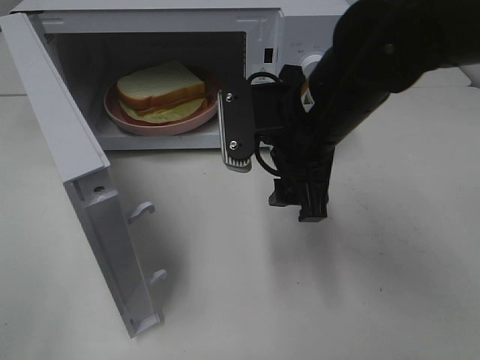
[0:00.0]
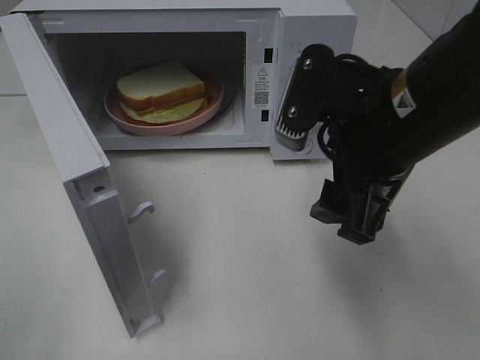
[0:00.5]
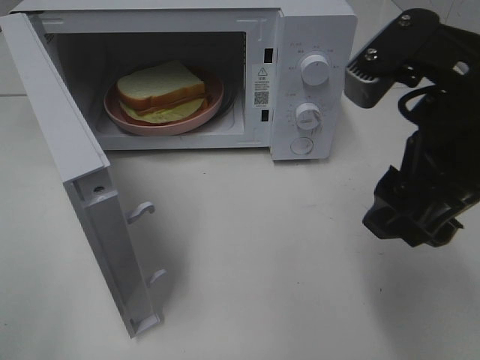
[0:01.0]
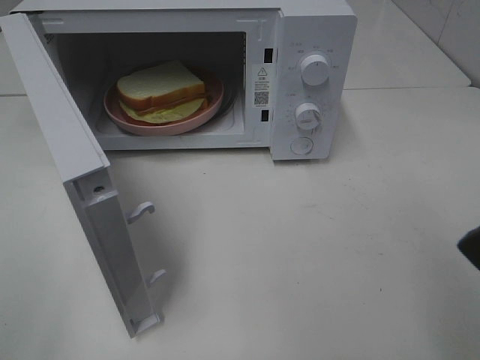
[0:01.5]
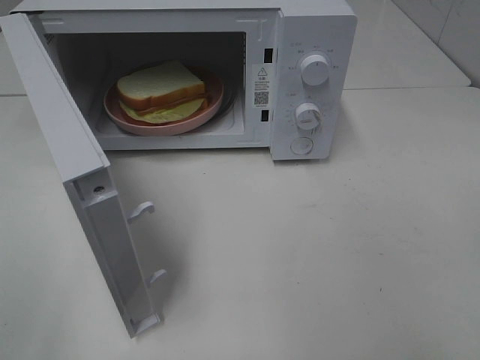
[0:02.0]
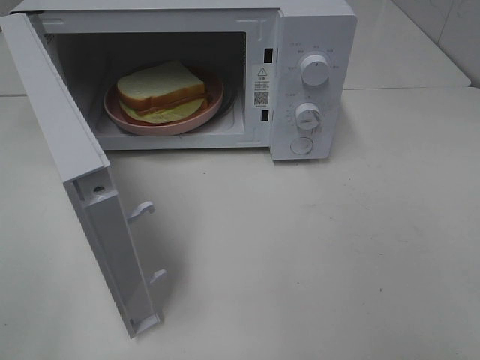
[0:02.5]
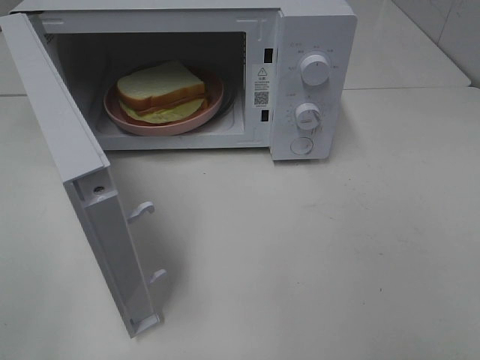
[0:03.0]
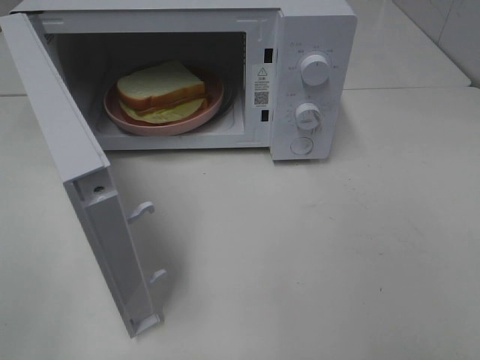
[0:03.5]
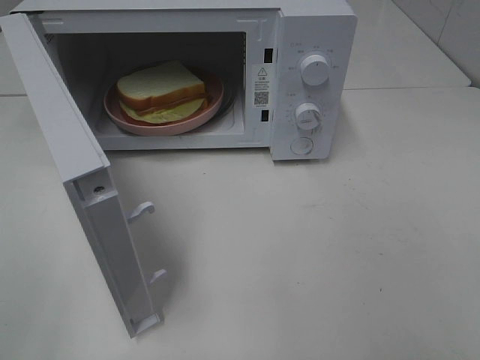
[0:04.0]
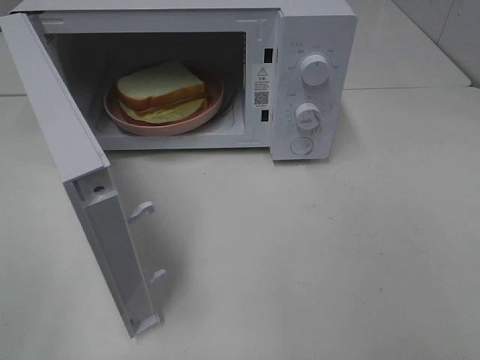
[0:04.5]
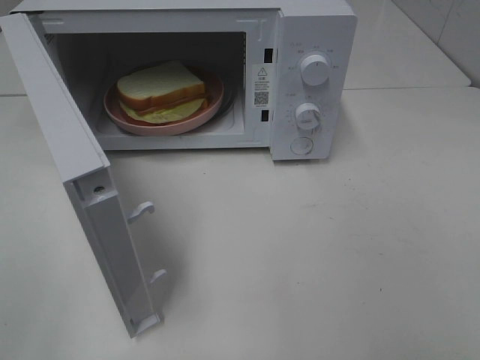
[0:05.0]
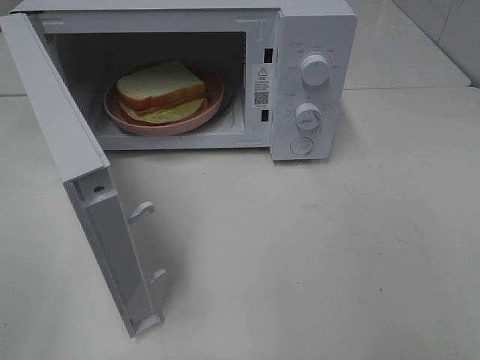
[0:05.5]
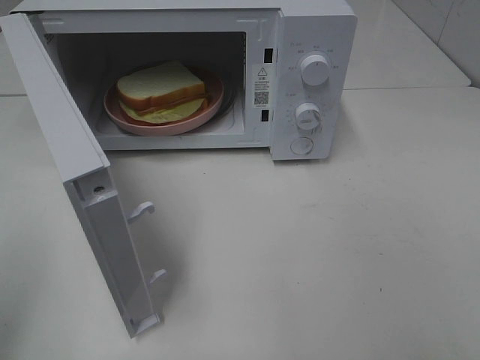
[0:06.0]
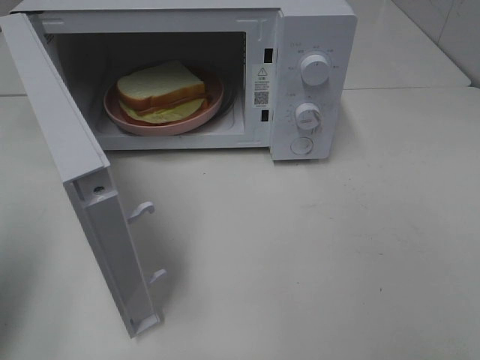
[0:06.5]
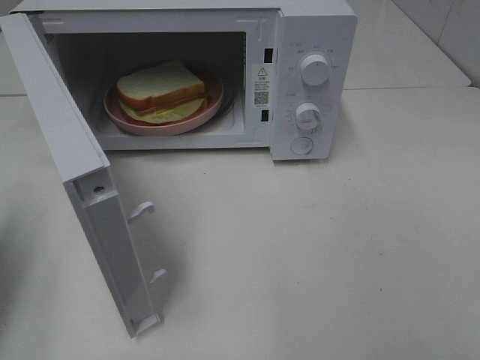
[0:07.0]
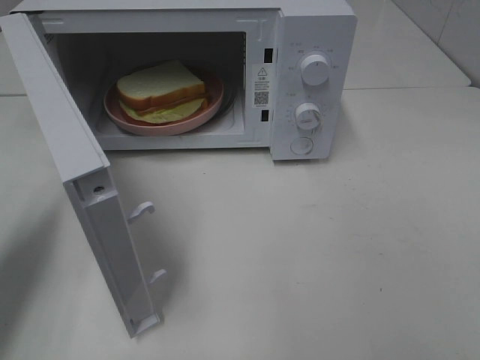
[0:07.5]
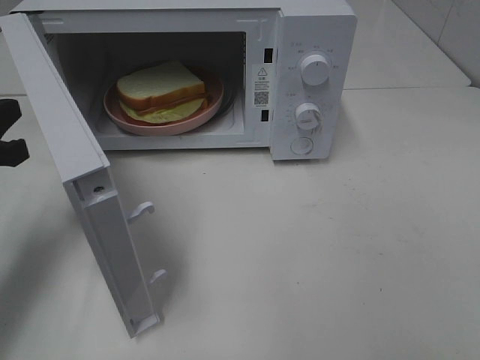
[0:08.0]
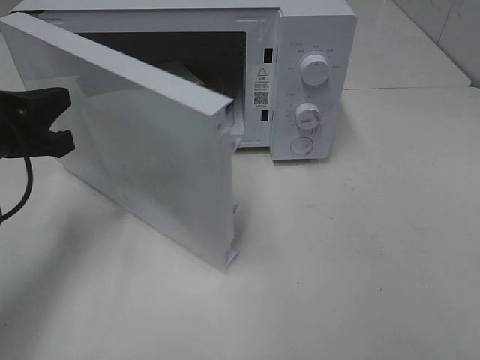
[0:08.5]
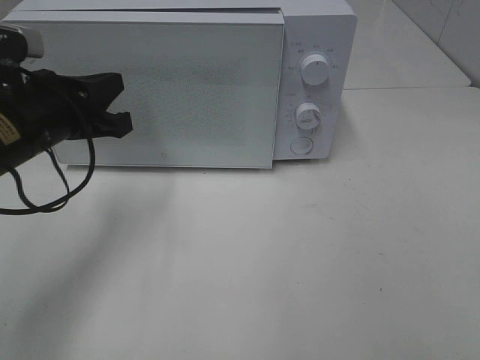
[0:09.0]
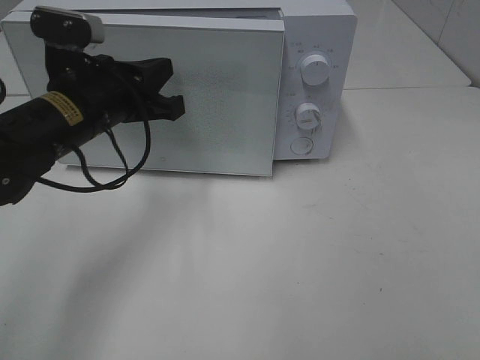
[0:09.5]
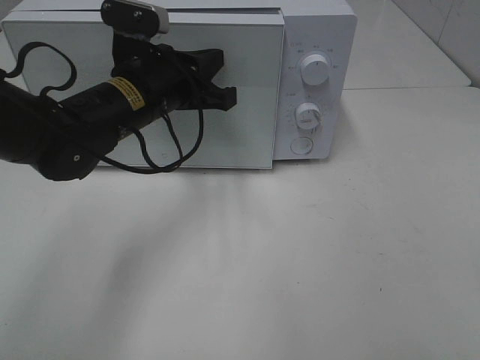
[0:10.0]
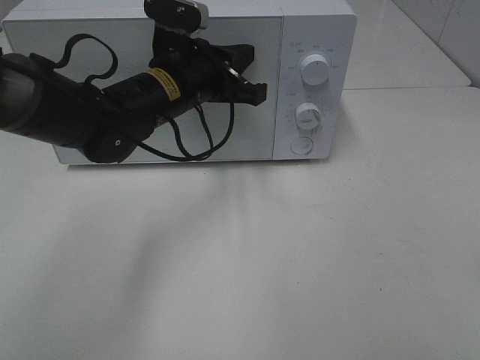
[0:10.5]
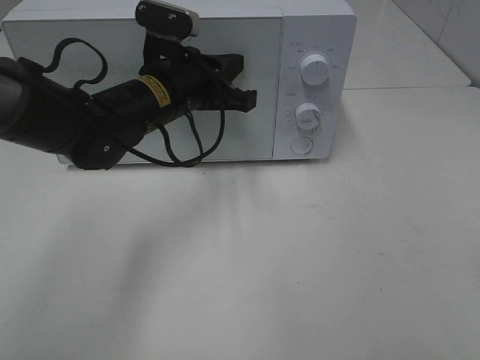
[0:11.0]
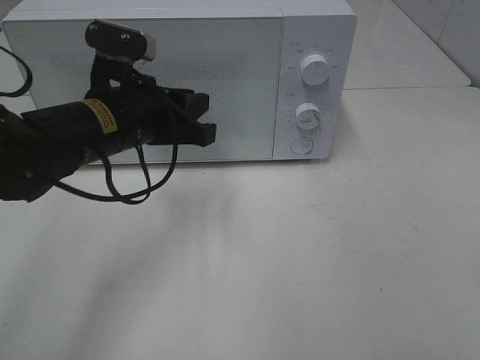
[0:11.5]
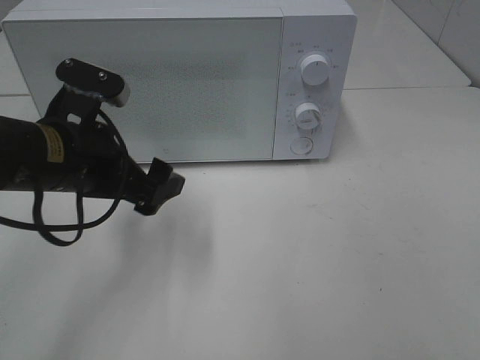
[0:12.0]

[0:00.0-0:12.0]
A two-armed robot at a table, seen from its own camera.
Task of the whole recording: Heat Sandwich.
Step, 0:00.0 to 0:11.5: Left hand: close the microwave door.
0:00.0 to 0:02.0: The right gripper moves backward, to the right and upward, about 30 cm.
0:06.0 to 0:08.0: The left gripper shifts some 20 cm forward and downward.
0:08.0 to 0:10.0: The left gripper shifts approximately 20 cm to the right and forward.
0:10.0 to 0:12.0: The left gripper heads backward and to the left, covering some 10 cm, and opens.

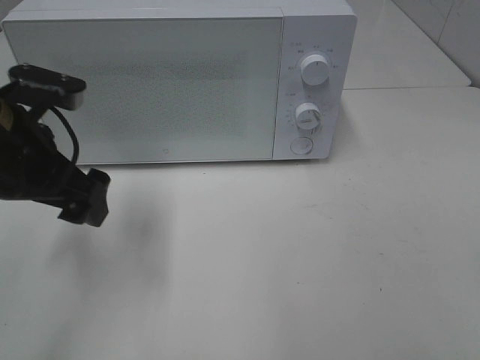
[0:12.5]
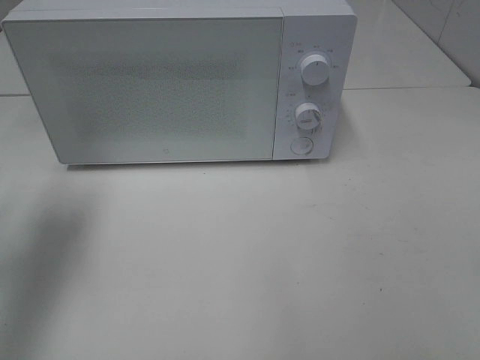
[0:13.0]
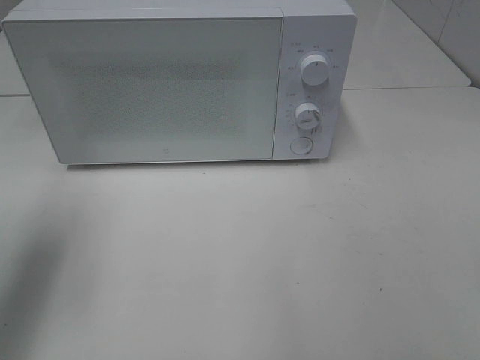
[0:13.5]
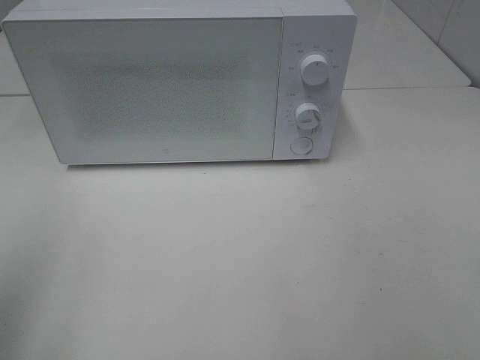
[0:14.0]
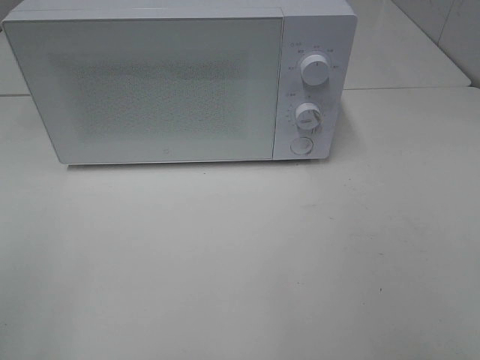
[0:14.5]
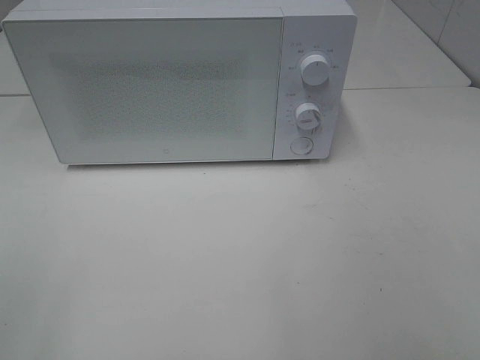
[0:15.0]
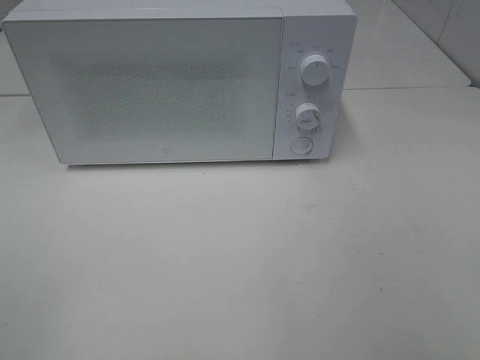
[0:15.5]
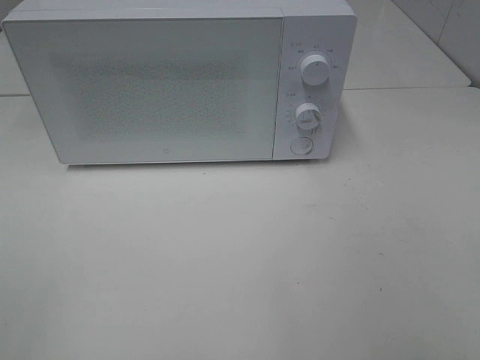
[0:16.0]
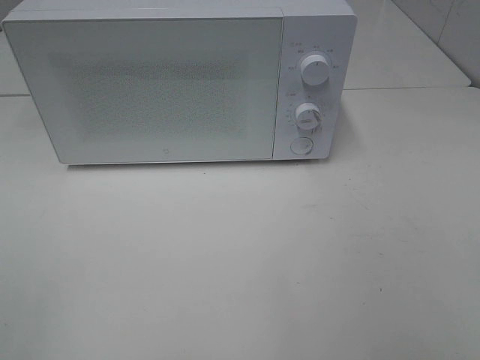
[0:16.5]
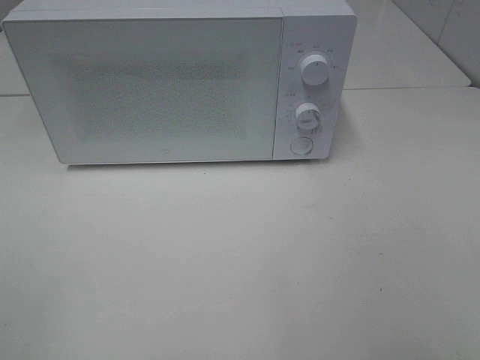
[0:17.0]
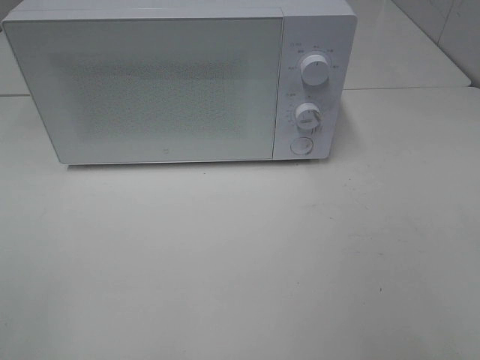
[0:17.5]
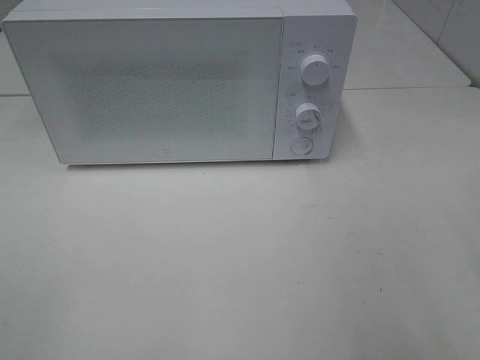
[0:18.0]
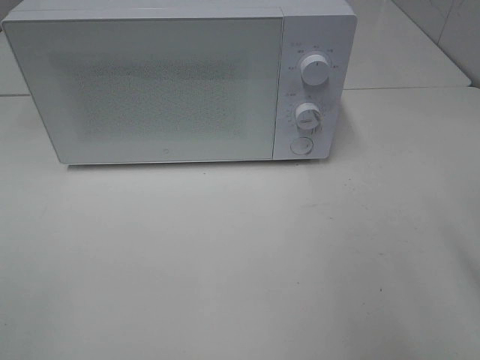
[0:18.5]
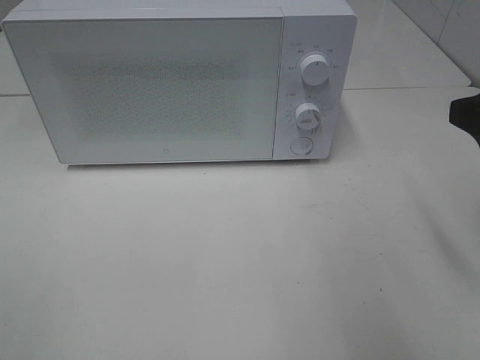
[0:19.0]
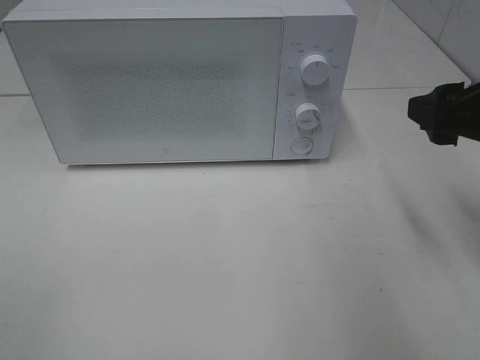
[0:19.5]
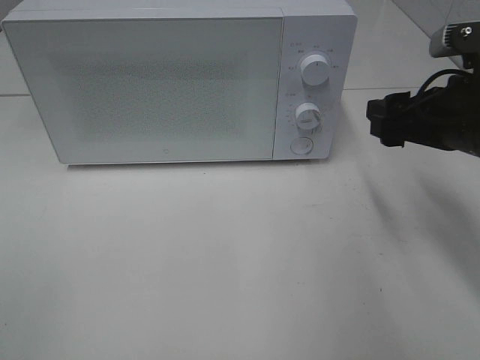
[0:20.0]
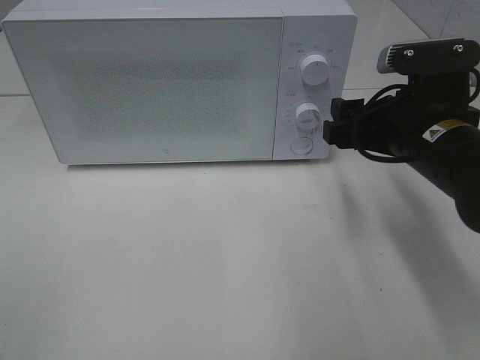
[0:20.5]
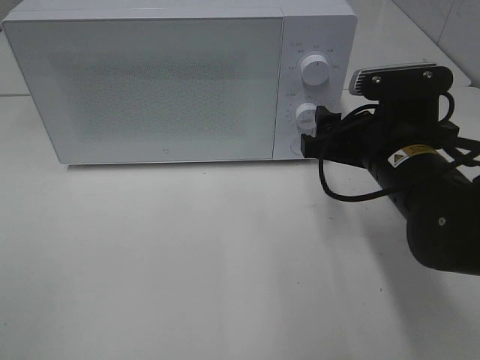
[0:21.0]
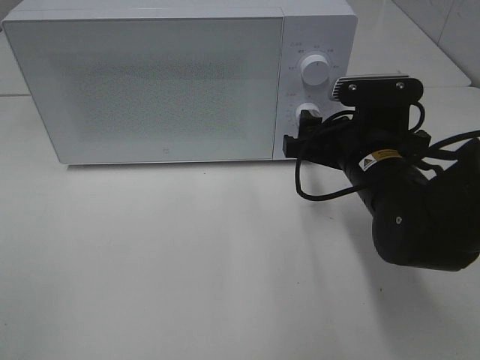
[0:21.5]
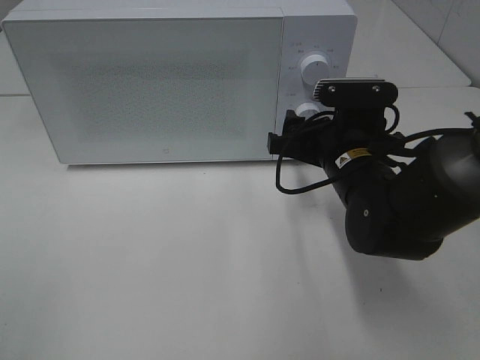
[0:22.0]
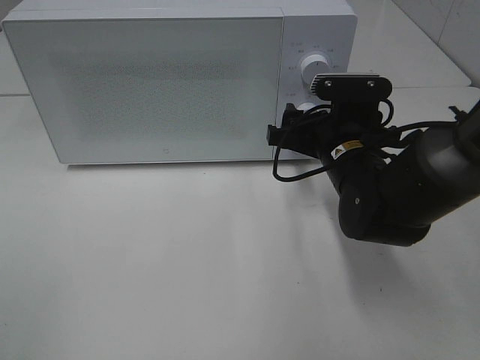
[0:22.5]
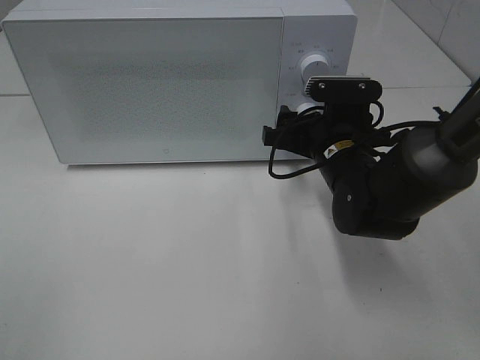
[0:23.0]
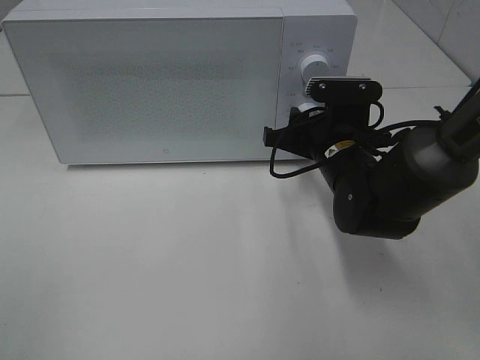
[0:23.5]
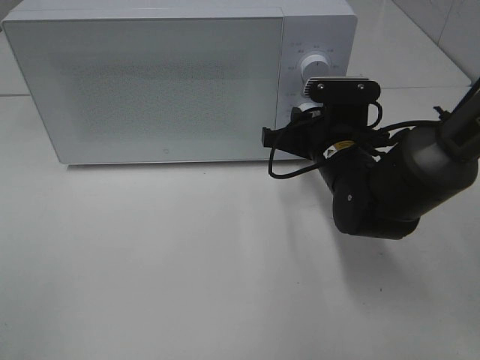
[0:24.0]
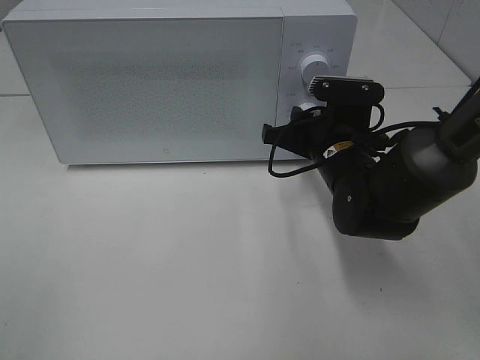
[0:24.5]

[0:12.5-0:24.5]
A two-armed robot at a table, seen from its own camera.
Task of the whole recording: Heat Sandwich.
0:12.5 to 0:14.5: The left gripper travels backward and to the left by about 25 cm.
0:18.5 to 0:20.5: The right gripper moves forward, downward and to the left, roughly 20 cm.
0:20.5 to 0:22.5: The right gripper heads downward, forward and to the left, covering roughly 10 cm.
0:22.5 to 0:24.5: The right gripper closes up.

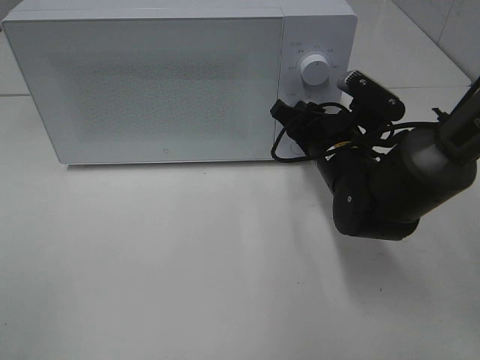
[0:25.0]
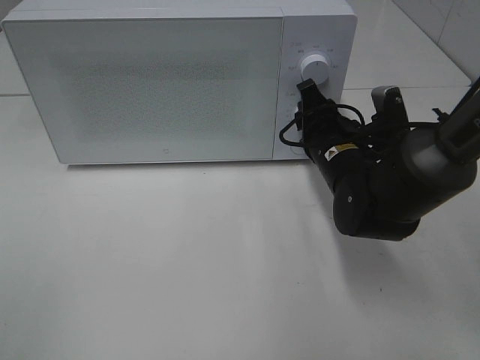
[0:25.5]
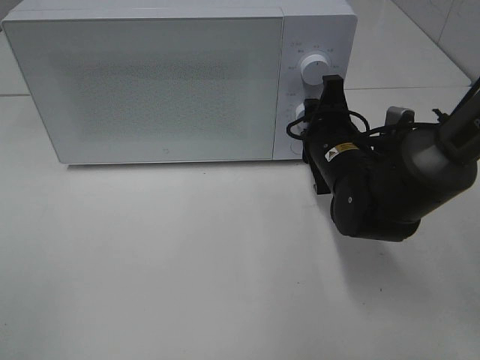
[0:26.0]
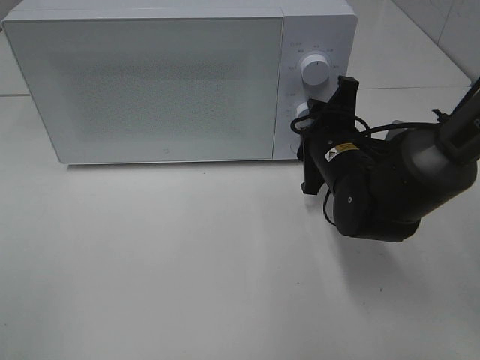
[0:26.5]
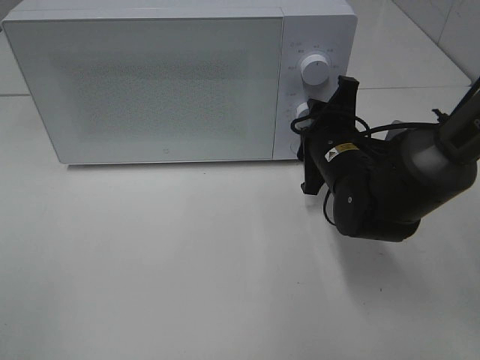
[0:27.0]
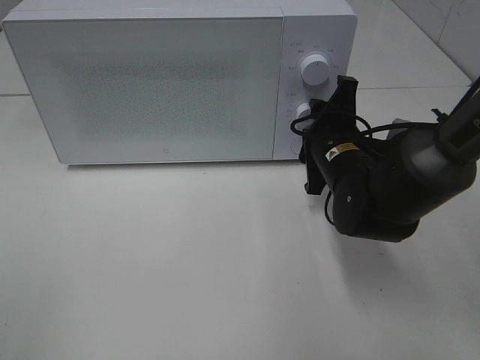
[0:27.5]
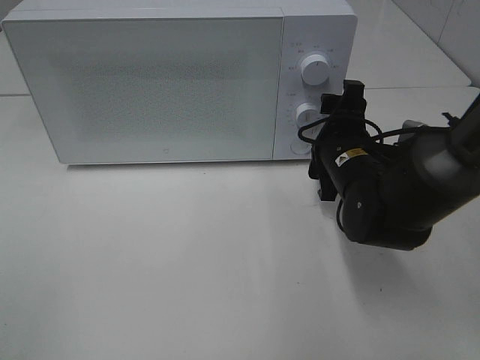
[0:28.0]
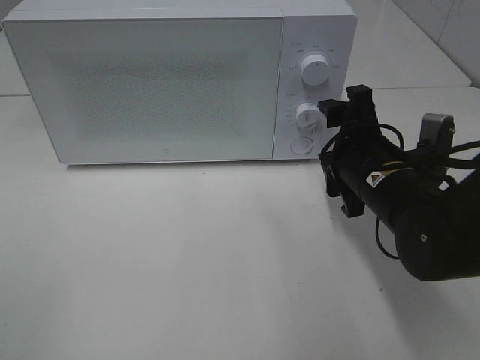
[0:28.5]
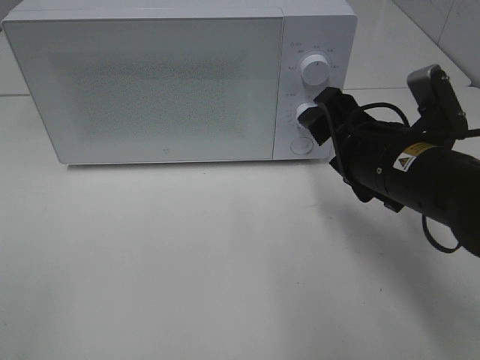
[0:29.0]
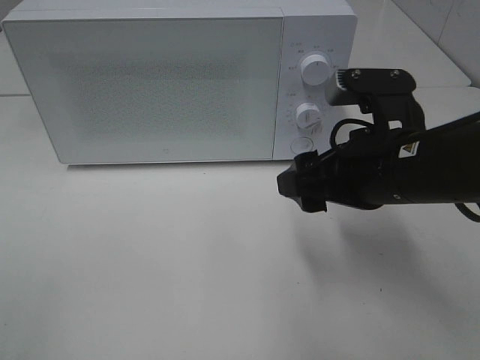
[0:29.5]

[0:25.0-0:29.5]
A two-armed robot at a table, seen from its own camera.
Task of the whole recording: Heat Sandwich.
Step, 0:25.0 to 0:28.5: Right hand: twist timer button.
0:27.0 to 0:29.5: The right gripper travels backward and upward by about 15 cm, and opens up.
